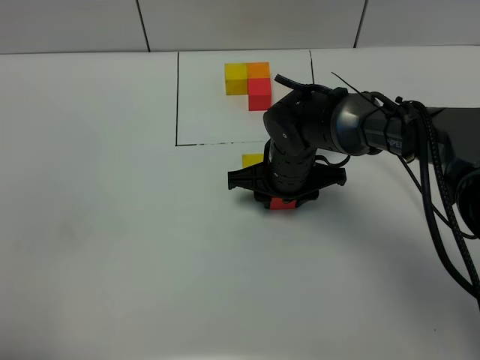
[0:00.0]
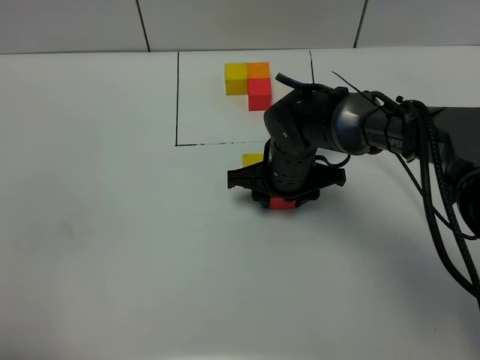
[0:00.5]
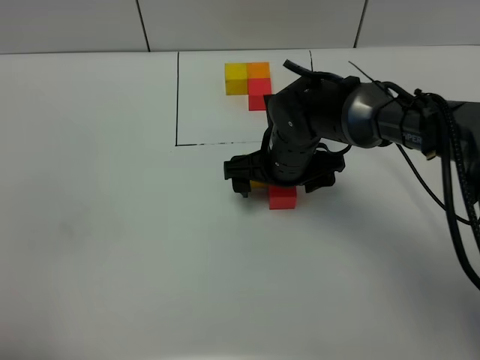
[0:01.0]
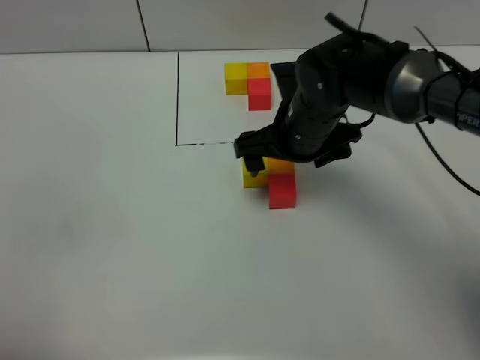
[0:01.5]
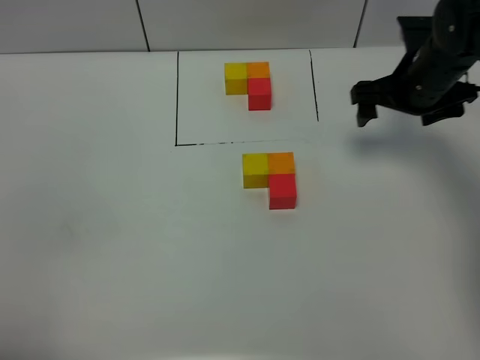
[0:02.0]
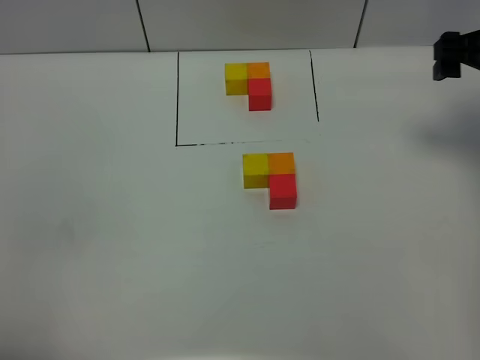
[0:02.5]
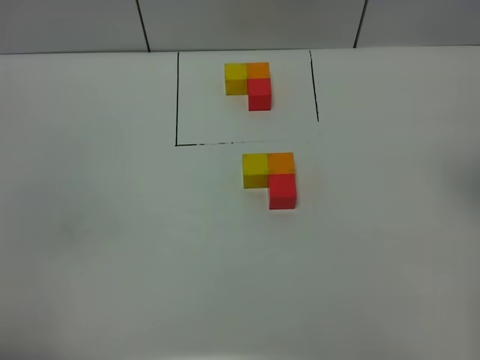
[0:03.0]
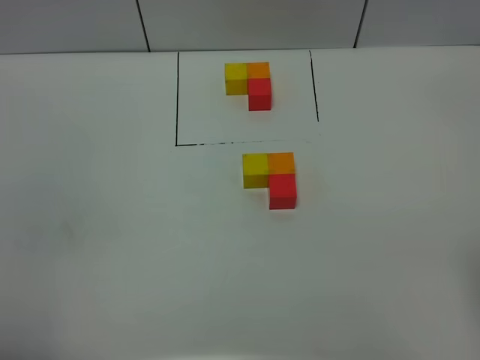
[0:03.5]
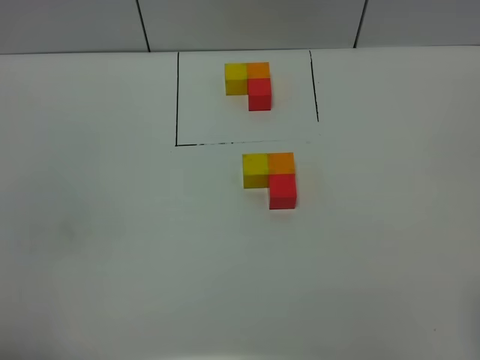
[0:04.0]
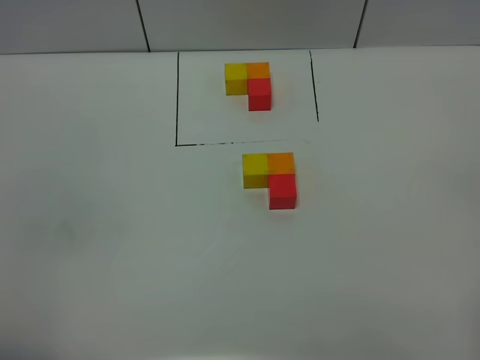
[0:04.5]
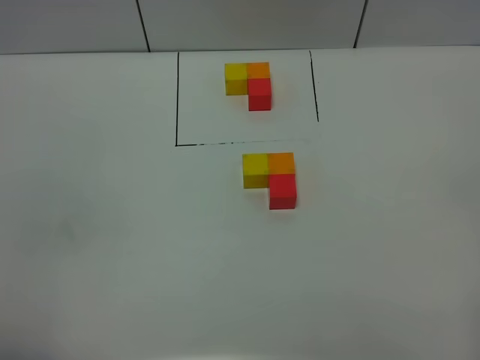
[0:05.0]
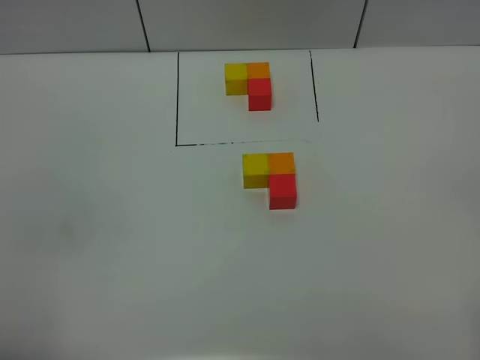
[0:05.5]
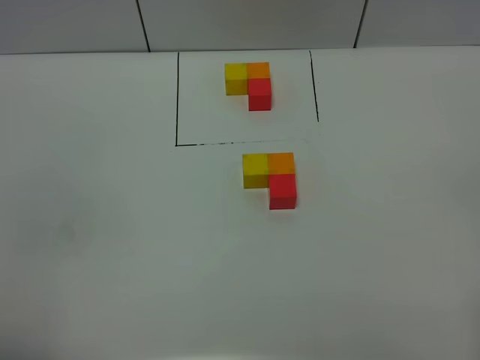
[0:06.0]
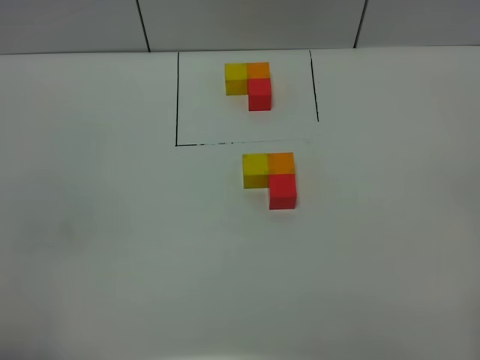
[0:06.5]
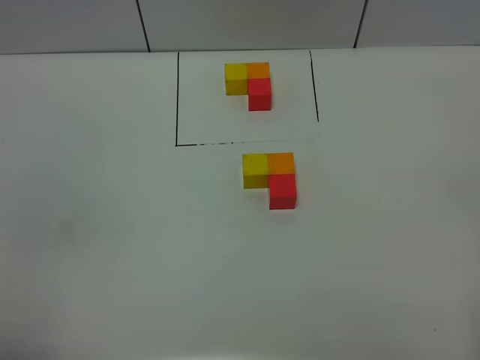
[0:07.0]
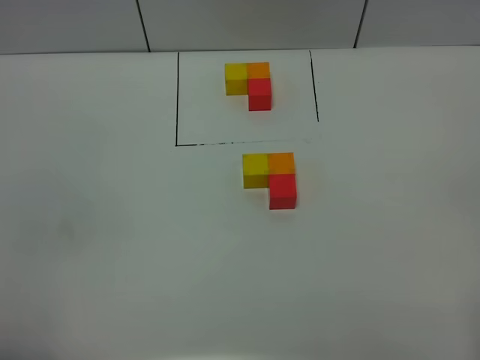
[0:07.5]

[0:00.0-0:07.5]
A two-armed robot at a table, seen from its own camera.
Task of the whole recording: According to the building block template in front, assemble the scattered blocks together.
0:00.0 to 0:02.0: The right gripper goes roughly 20 cm to the right and upward, and opens up.
0:02.0 to 0:04.0: The right gripper moves backward, some 40 cm.

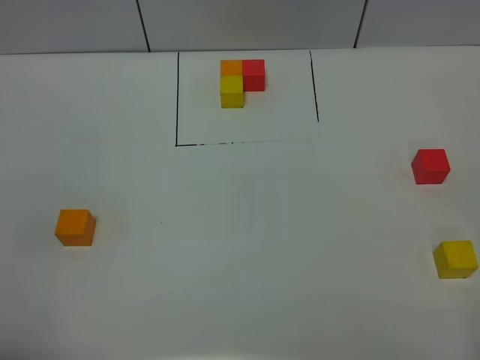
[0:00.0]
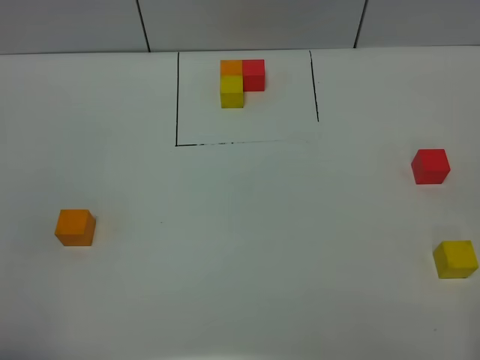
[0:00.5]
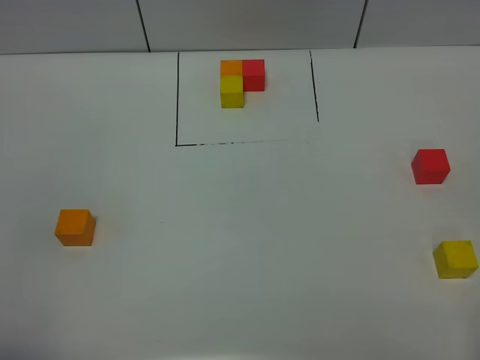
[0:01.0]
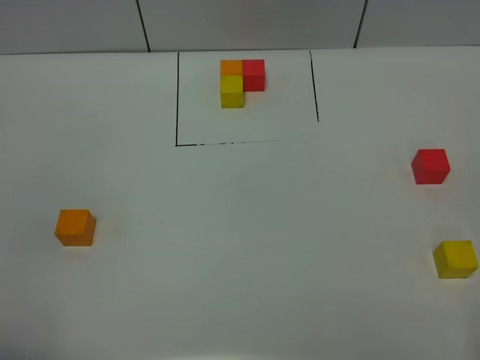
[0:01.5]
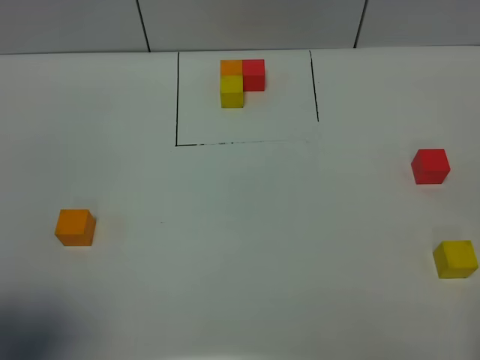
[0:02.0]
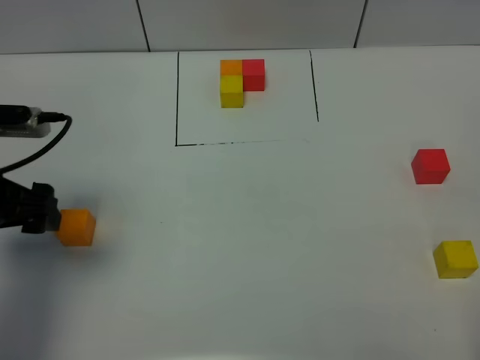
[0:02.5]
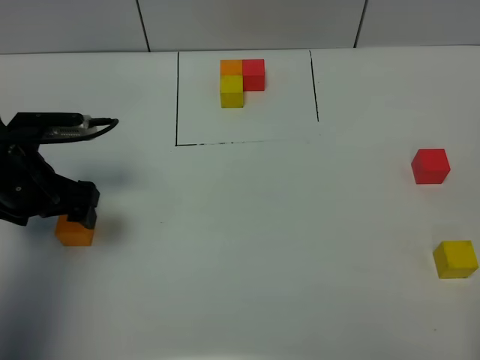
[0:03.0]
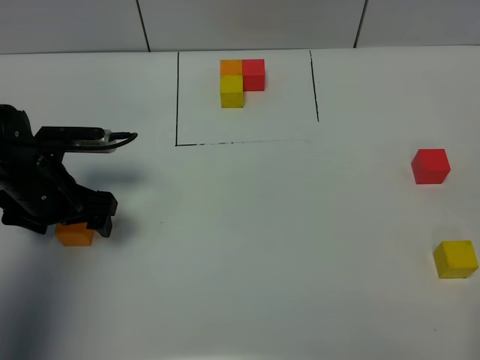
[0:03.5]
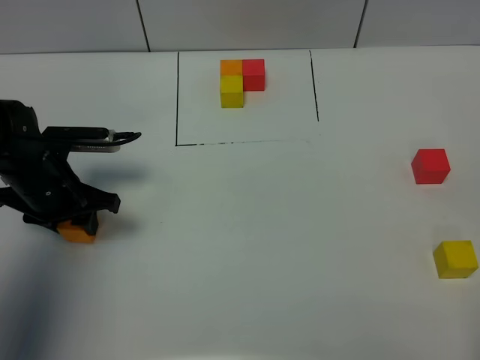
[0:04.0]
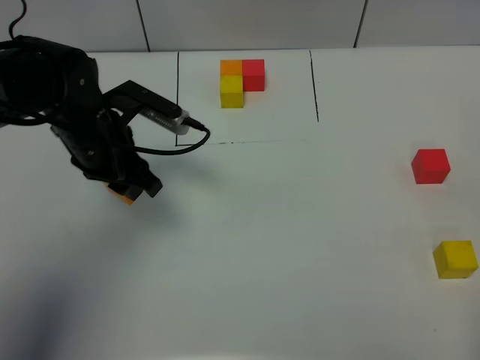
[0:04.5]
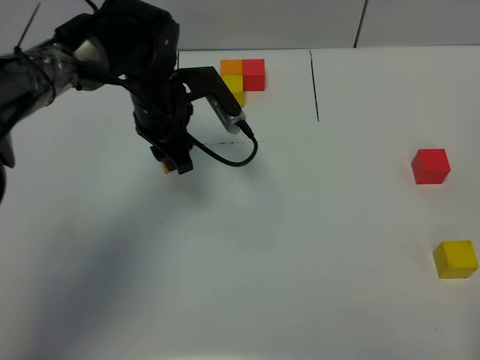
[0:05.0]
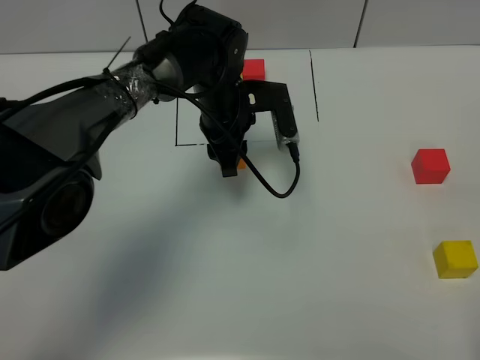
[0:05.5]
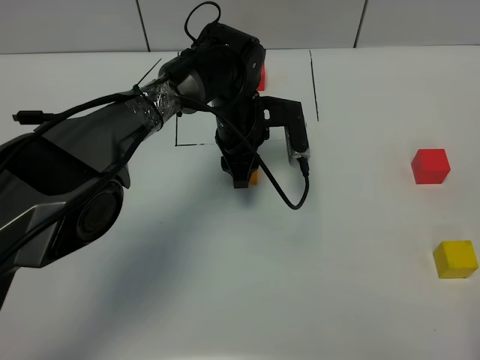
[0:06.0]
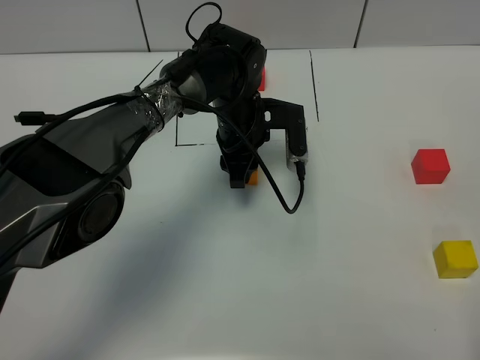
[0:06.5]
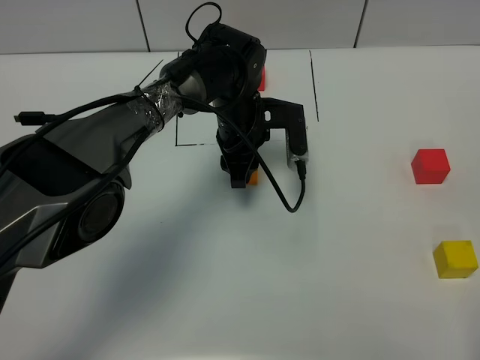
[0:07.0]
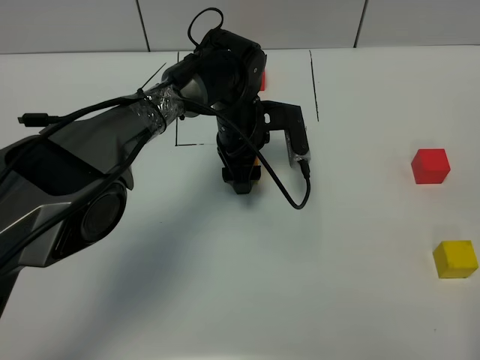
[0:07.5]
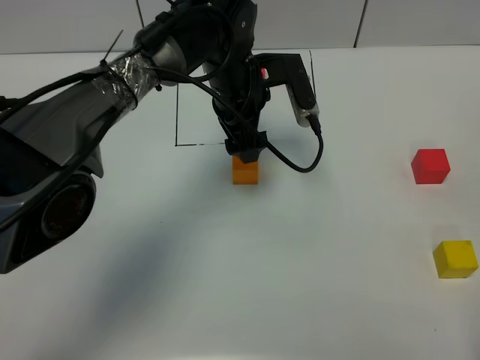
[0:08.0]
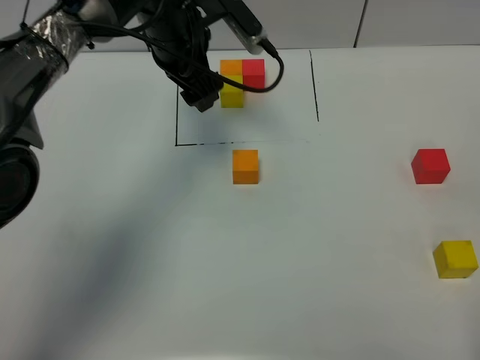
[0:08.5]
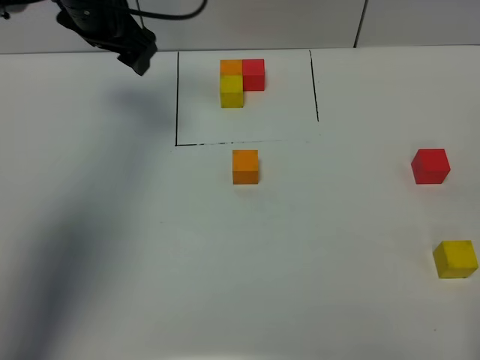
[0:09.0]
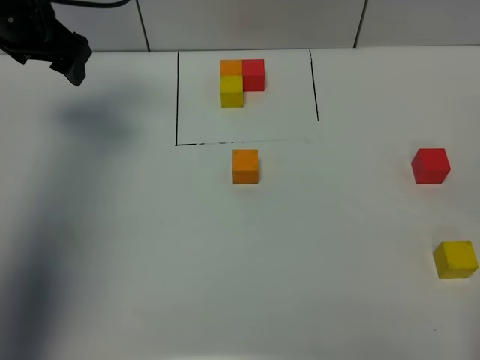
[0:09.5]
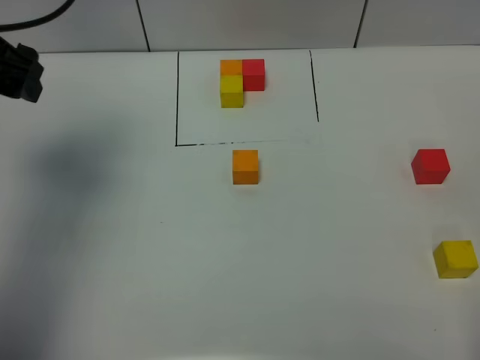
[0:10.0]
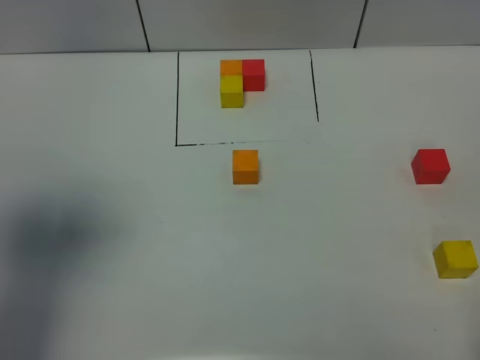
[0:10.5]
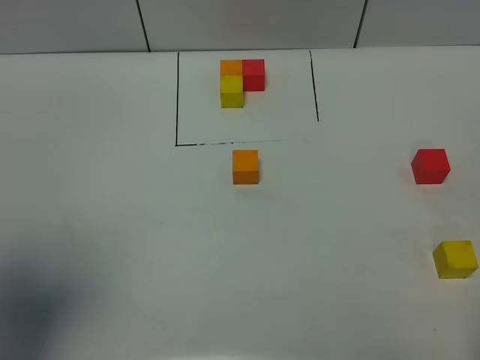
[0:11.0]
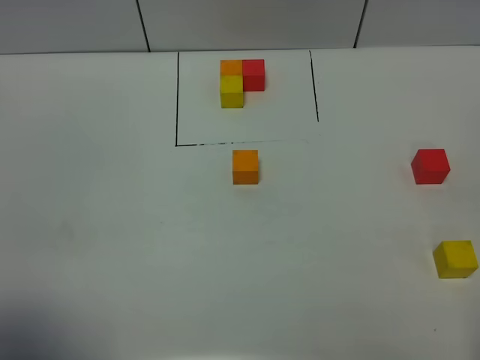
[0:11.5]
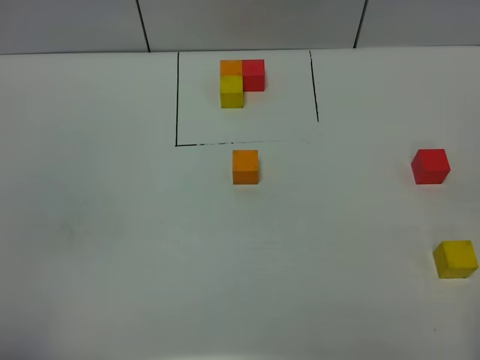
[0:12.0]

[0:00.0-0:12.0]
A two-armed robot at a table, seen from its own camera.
Task of the whole recording: According to the building block template in front, assemble the scattered blocks together.
Step, 0:00.0 to 0:07.0: Put the orange build block in the center of the table.
0:00.0 to 0:02.0: The left gripper heads forward, covering approximately 10 cm.
0:02.0 to 0:04.0: The left gripper heads forward and downward, covering about 30 cm, and closes.
0:04.0 to 0:06.0: The left gripper moves to the right and forward, about 25 cm.
0:06.0 to 0:08.0: The left gripper moves upward, roughly 5 cm, and opens.
0:08.0 to 0:10.0: The left gripper shifts some 30 cm to the left and upward.
0:10.0 to 0:12.0: The left gripper goes about 35 cm backward.

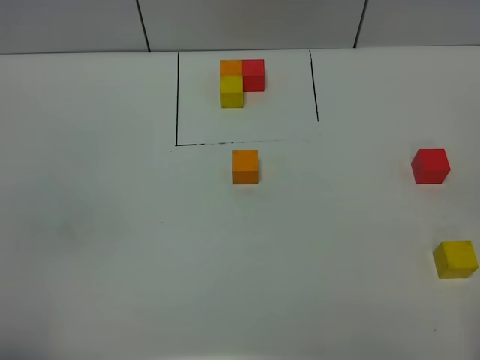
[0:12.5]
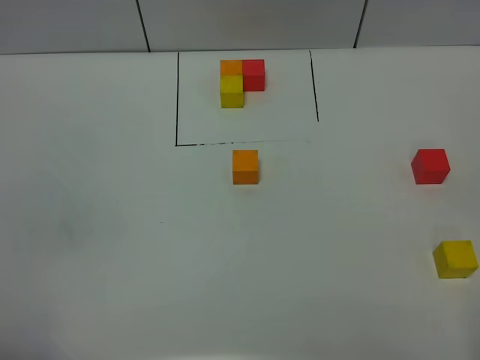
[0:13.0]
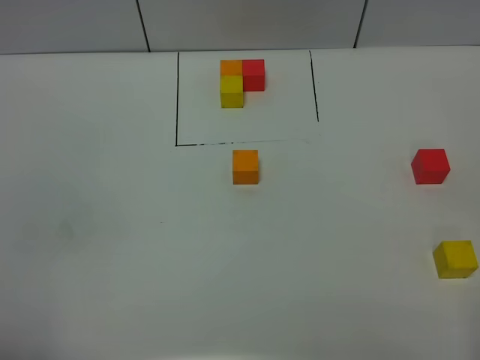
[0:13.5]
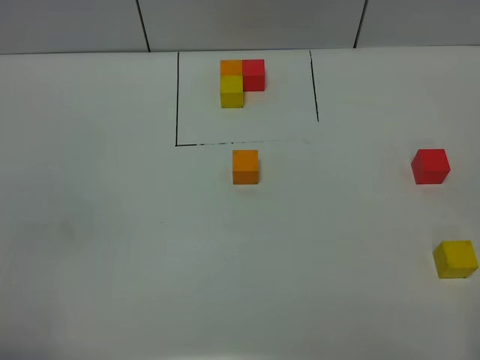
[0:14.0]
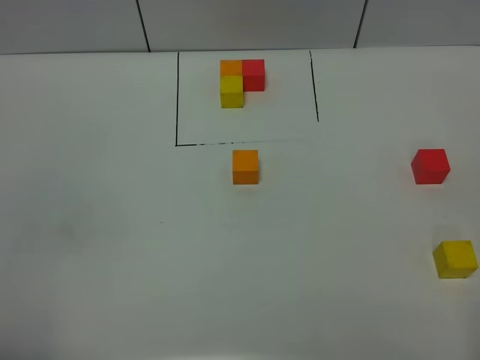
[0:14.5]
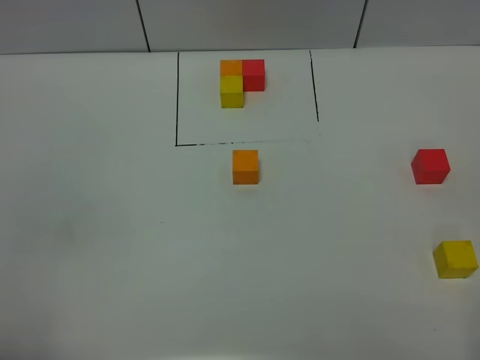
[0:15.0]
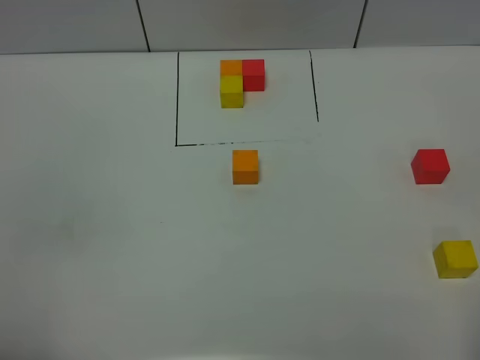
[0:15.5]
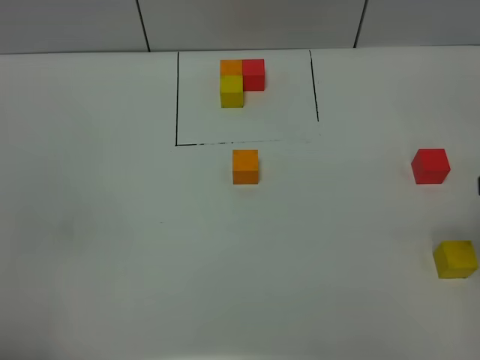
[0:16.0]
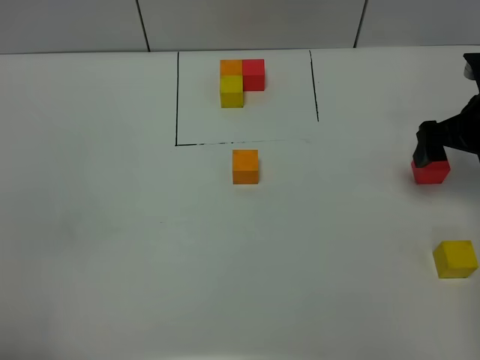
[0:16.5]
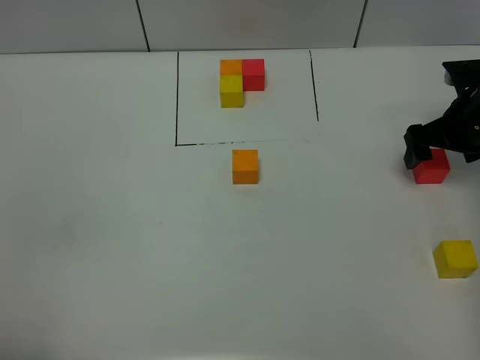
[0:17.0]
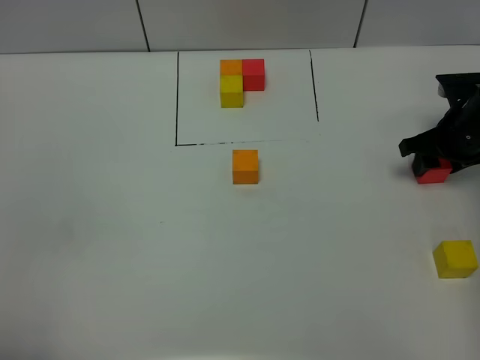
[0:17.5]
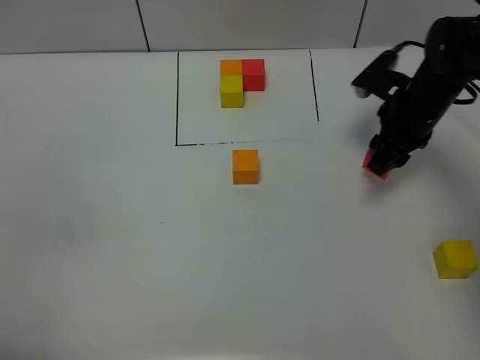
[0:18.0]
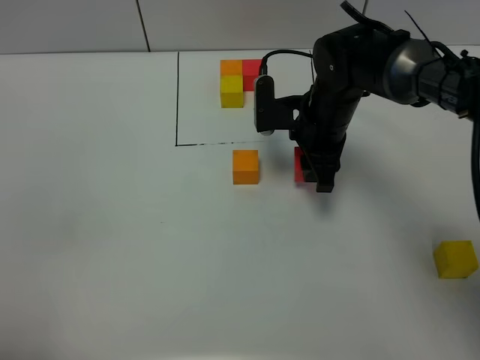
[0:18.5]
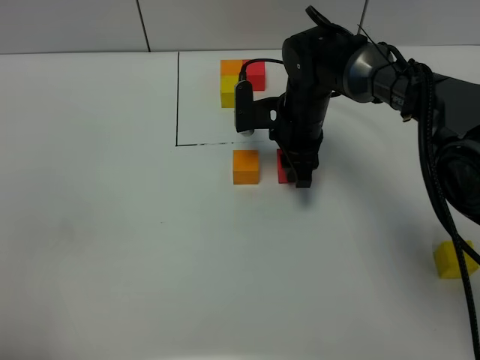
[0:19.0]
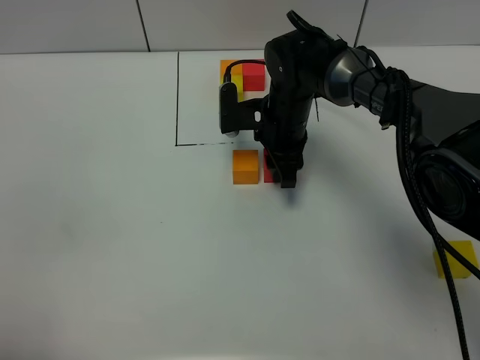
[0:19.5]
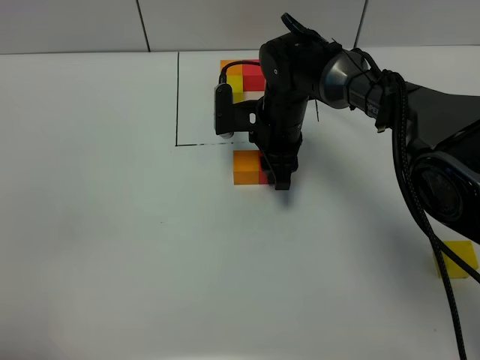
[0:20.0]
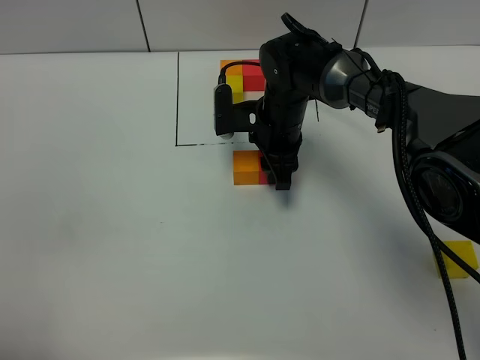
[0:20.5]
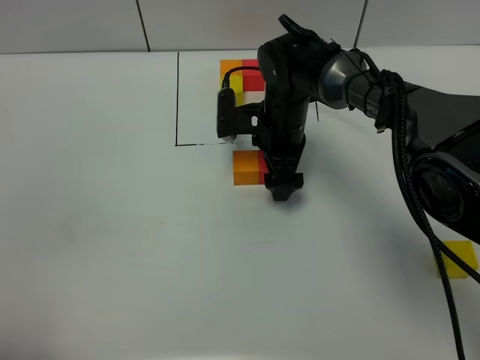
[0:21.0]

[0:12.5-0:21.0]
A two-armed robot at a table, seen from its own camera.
Task of the whole recording: According to the building block template in front, assemble the scattered blocks together.
Step, 0:12.5 to 0:20.5: Put the red build block on the right of the orange build block.
0:12.5 to 0:14.5: Both grippers stay put.
0:14.5 to 0:16.5: The right gripper shifts some 35 cm forward.
0:16.5 to 0:19.0: The right gripper goes about 25 cm to the left, and closes up.
0:19.0 to 0:21.0: The right gripper opens its fingers.
